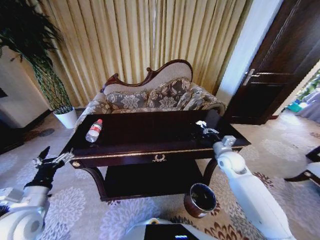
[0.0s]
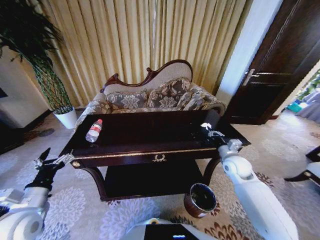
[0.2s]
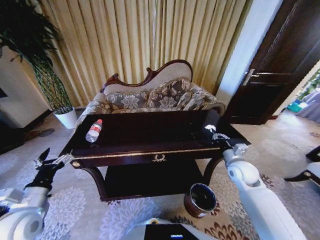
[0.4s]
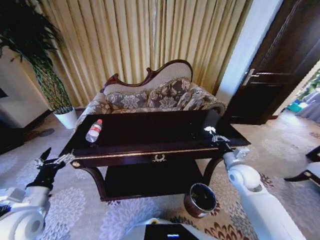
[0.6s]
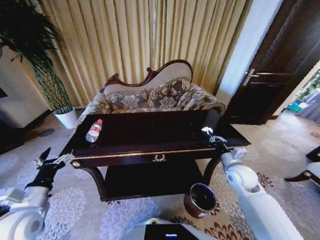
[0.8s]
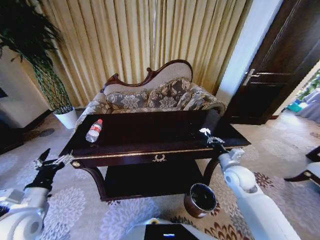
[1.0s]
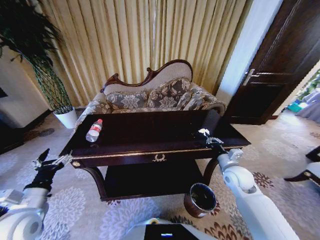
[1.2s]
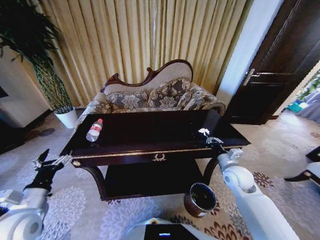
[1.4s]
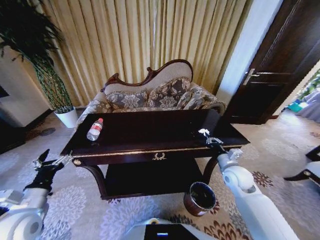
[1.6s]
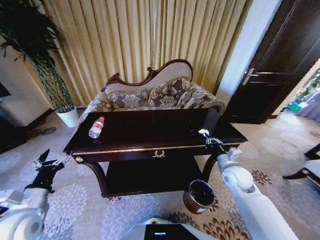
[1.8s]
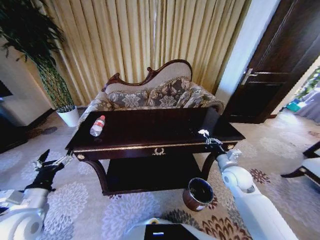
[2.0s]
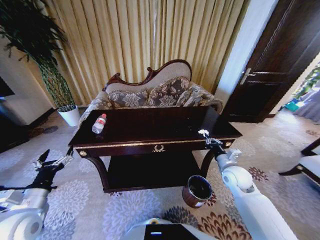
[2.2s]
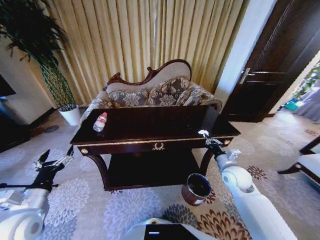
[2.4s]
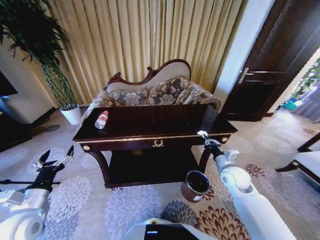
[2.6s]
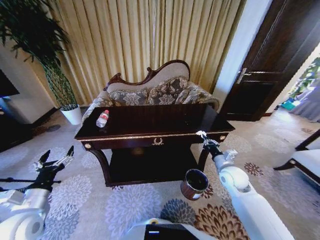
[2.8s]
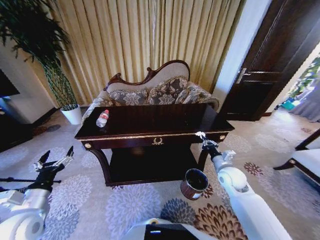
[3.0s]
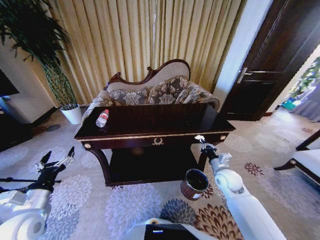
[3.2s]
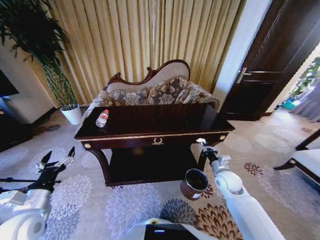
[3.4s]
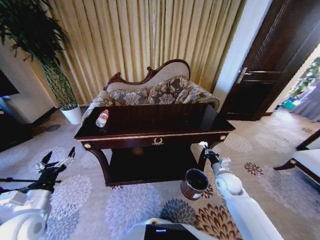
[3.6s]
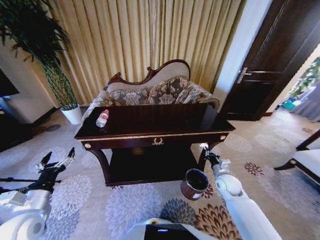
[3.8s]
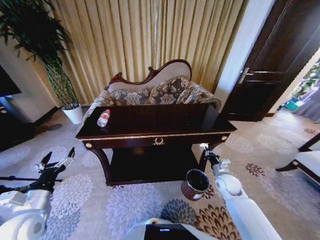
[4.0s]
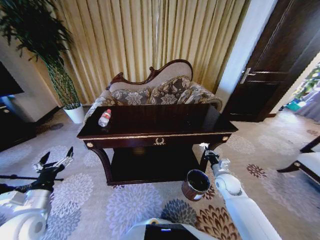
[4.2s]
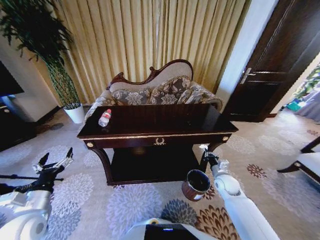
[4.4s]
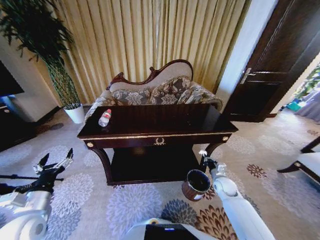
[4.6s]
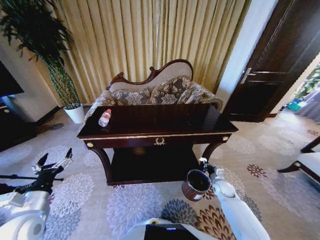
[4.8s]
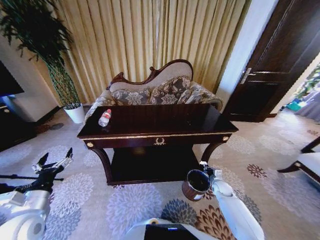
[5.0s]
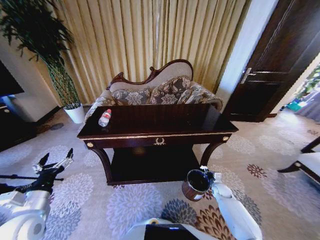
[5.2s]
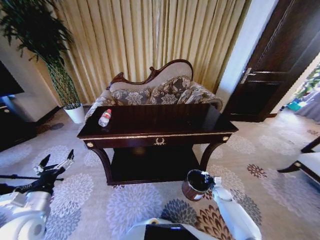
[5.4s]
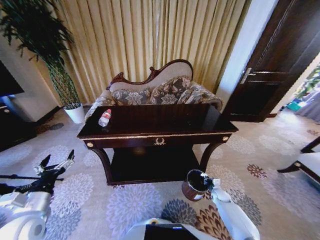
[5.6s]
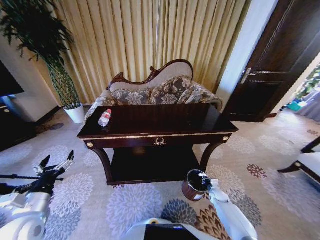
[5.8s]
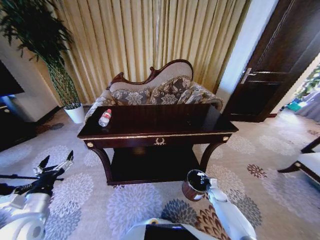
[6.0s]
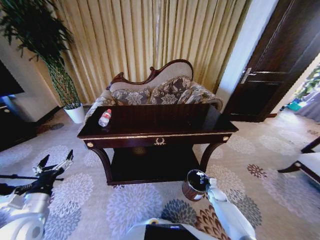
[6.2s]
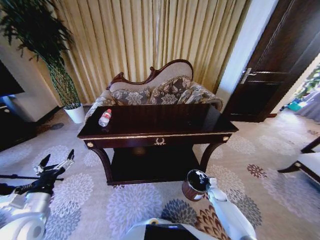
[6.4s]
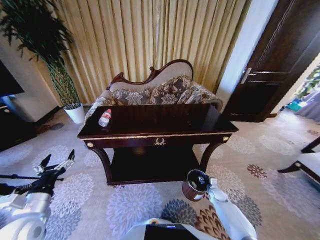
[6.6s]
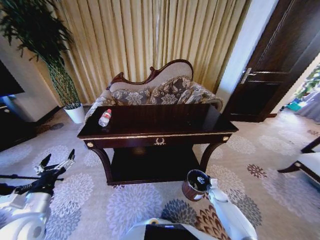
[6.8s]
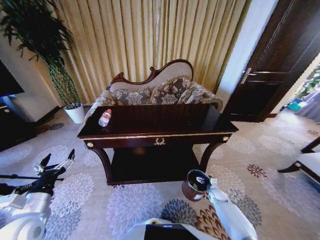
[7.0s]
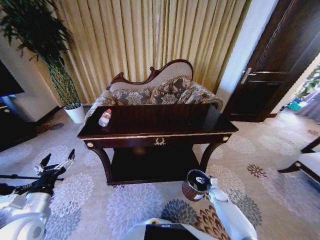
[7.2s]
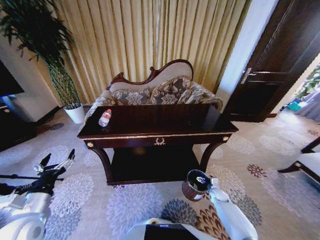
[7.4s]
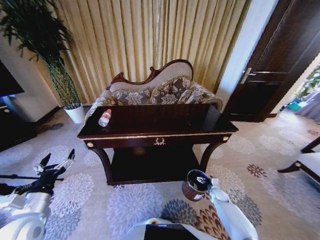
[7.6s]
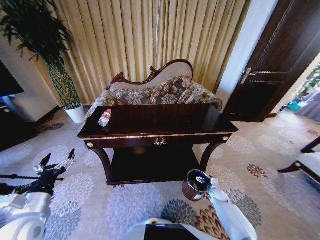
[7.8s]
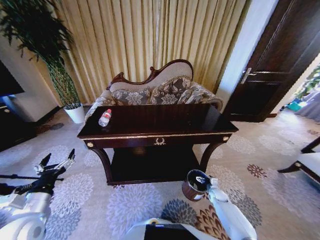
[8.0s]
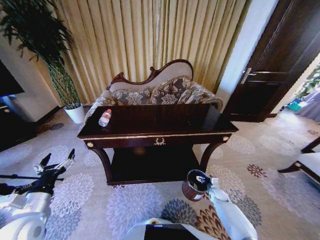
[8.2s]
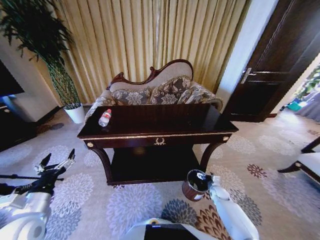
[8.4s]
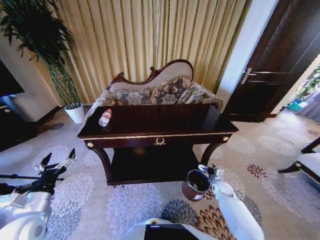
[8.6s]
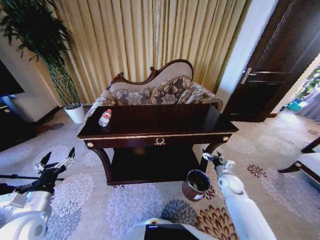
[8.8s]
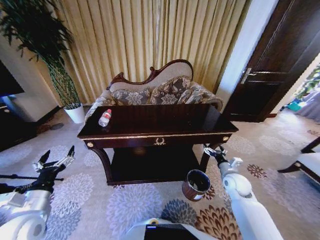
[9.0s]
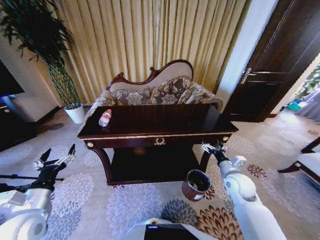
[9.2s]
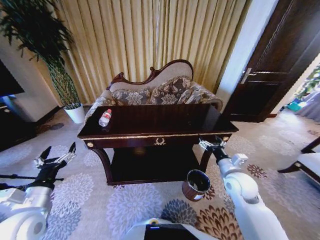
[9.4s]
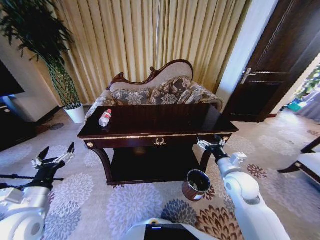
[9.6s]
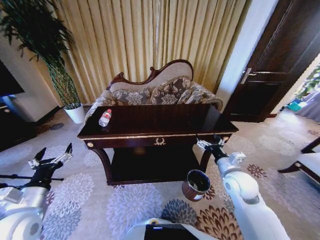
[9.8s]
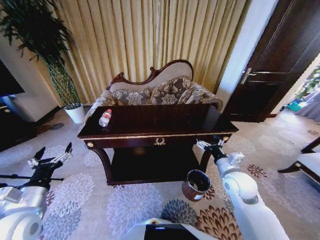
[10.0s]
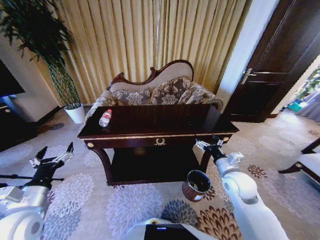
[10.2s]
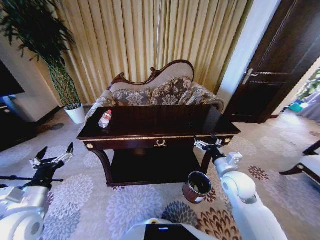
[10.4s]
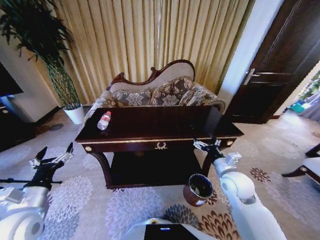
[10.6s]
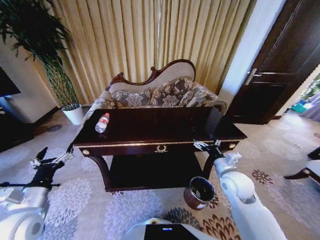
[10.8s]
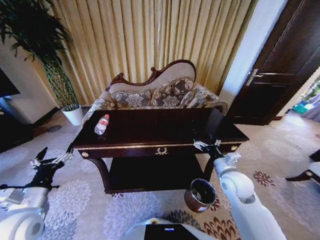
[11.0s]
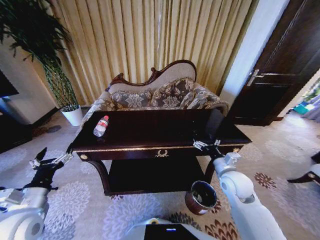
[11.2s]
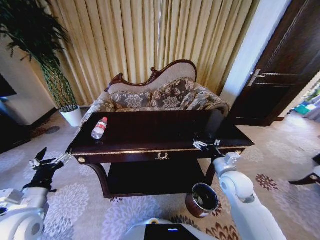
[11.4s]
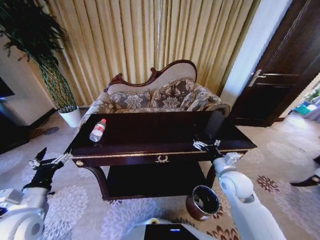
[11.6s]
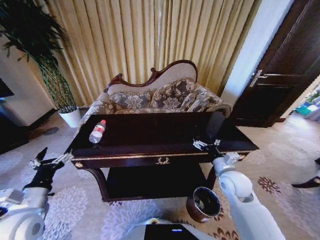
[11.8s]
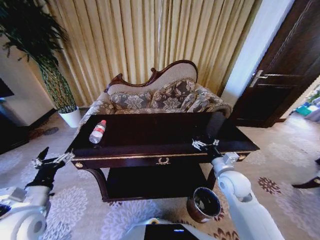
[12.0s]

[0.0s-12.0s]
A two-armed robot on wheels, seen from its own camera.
Task of the whole recording: Move to the front of the table and place the trash on the table into the trash bin.
0.0s to 1.6s: The right gripper is displaced backward by some 5 cm.
3.0s to 4.4s: The right gripper goes approximately 10 cm downward.
4.4s to 6.0s: The right gripper shifts some 20 cm downward.
7.6s to 9.0s: The right gripper is displaced upward by some 20 cm.
9.0s to 10.4s: The right gripper moves upward and to the left, approximately 15 cm.

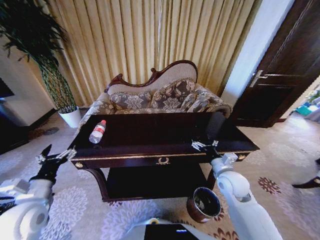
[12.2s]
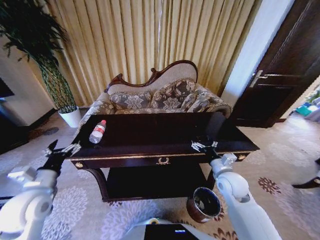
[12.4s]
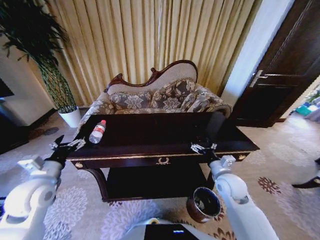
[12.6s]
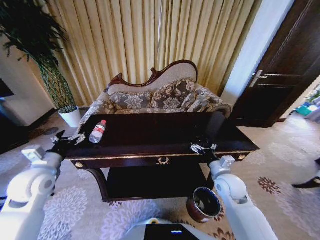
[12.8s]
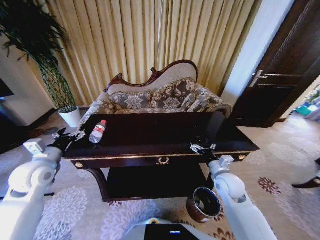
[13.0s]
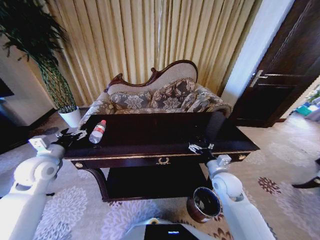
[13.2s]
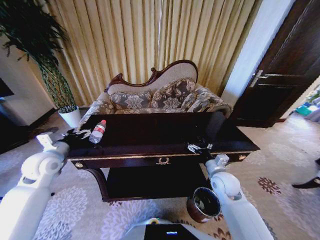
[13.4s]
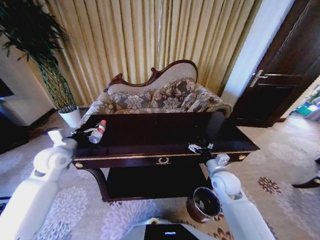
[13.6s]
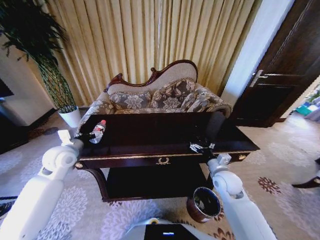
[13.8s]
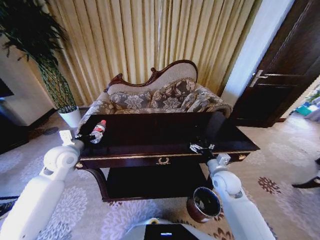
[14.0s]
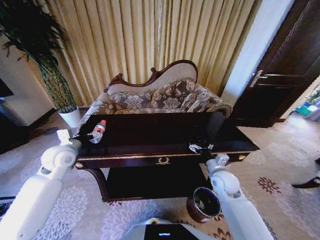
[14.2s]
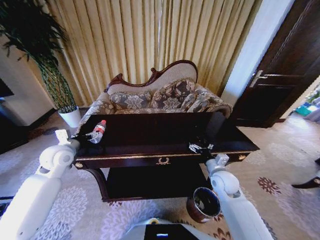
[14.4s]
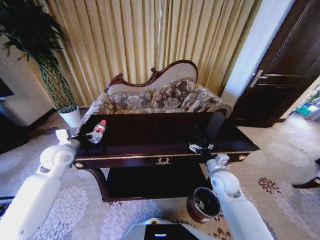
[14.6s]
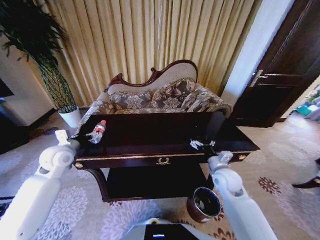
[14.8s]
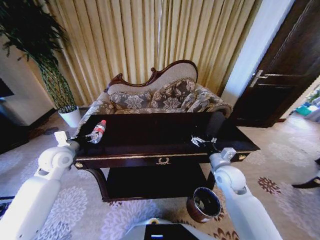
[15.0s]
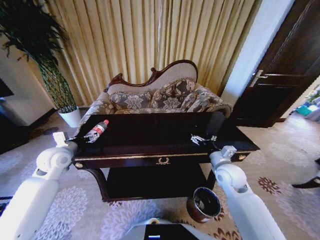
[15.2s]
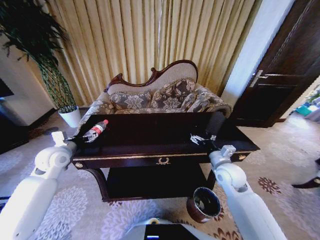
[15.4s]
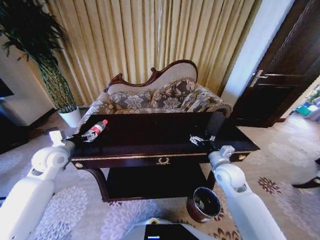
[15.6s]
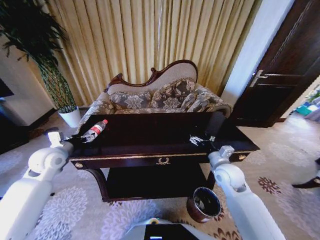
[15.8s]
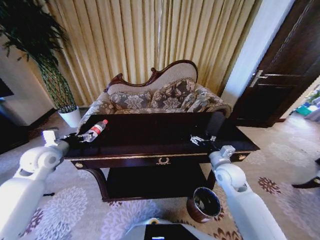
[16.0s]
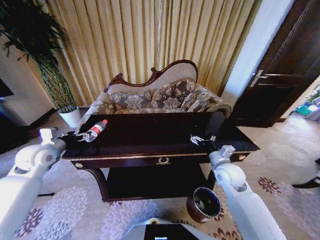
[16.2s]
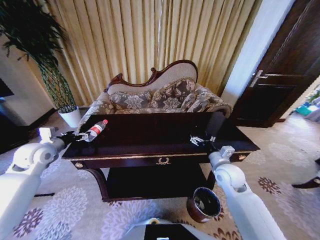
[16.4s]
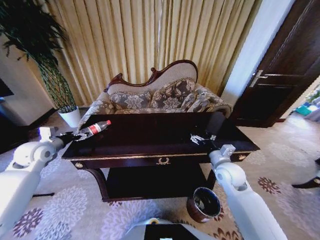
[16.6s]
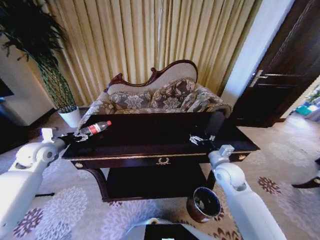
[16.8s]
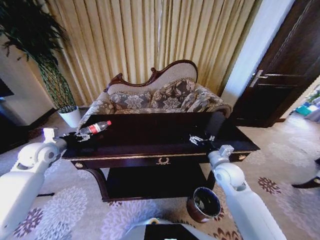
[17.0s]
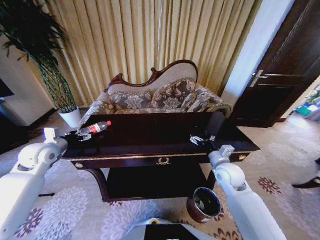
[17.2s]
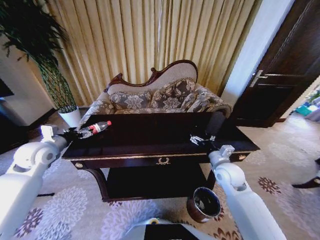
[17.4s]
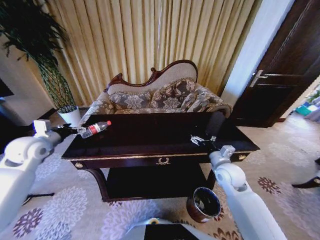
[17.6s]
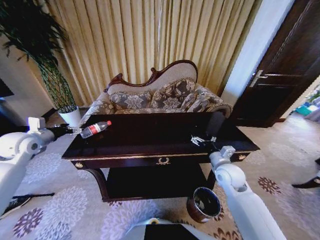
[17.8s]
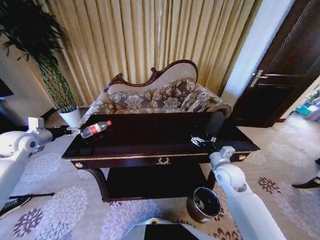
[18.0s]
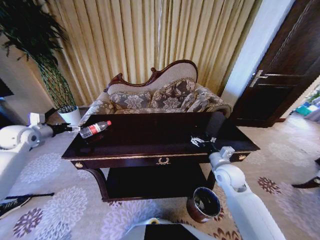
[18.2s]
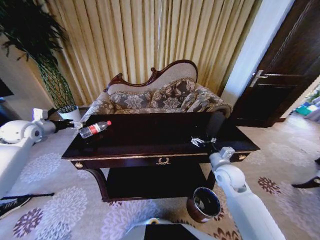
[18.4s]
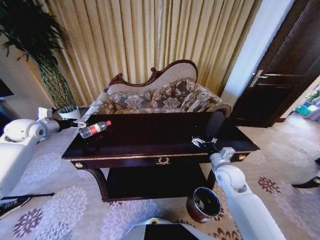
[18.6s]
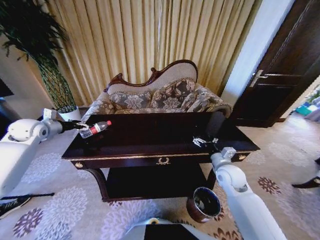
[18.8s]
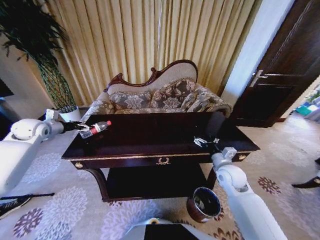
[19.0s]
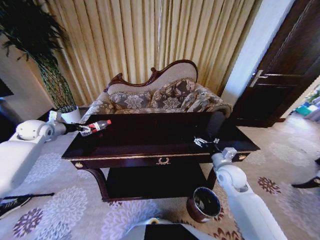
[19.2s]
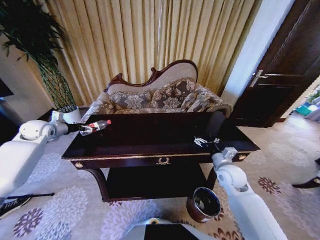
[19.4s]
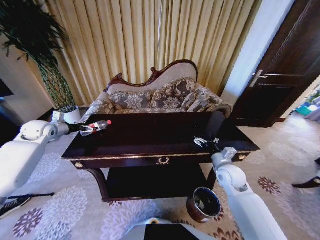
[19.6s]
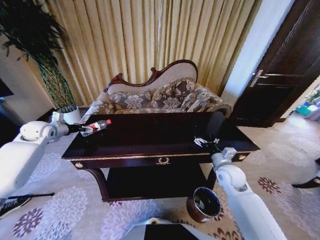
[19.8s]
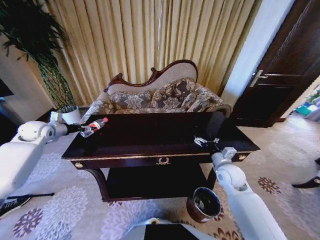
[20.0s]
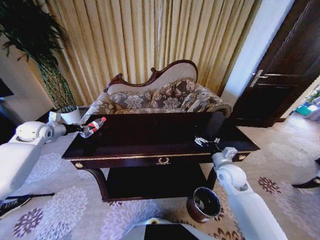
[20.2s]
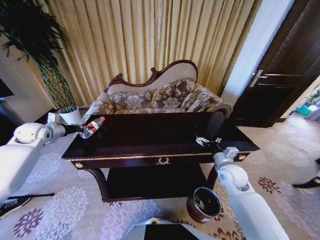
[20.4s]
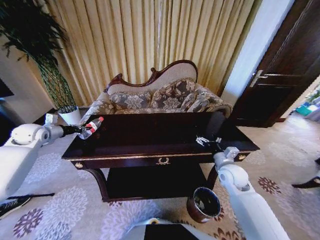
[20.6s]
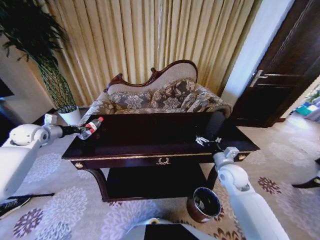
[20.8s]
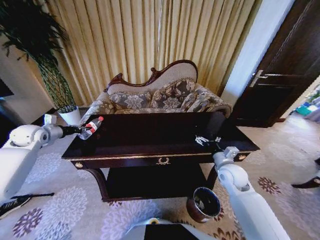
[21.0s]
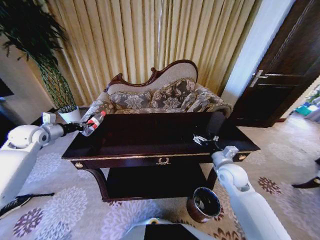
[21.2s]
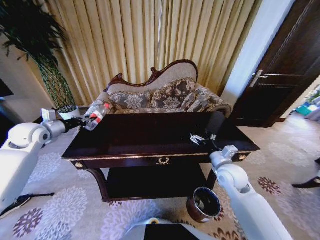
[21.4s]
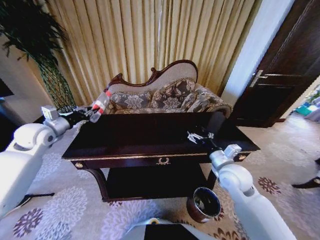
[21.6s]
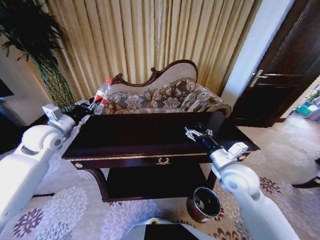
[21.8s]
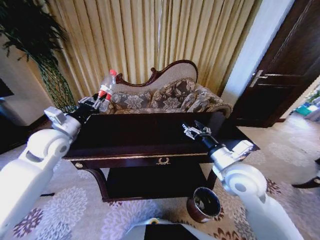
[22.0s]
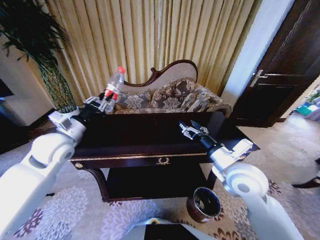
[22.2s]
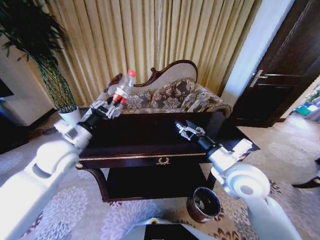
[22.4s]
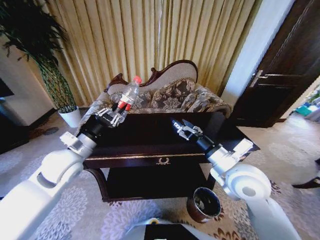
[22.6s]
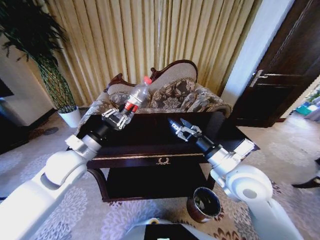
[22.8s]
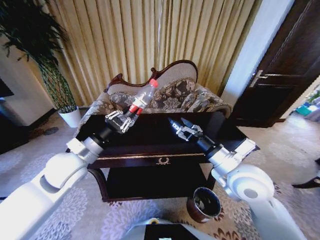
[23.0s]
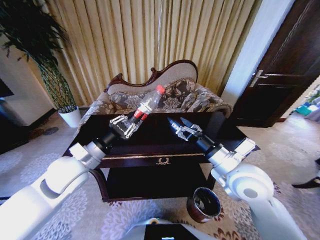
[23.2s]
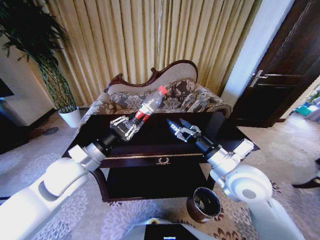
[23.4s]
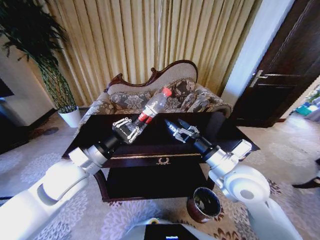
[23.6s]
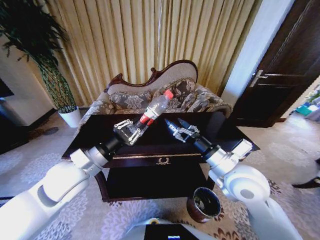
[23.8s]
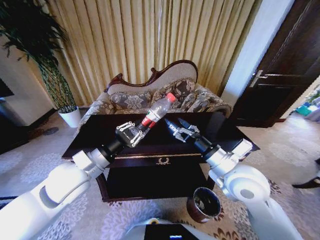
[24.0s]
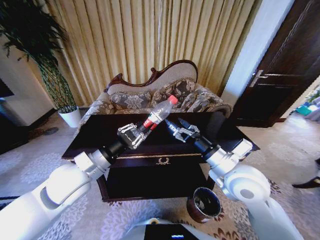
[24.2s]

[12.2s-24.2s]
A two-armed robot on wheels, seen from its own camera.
Task of the whole recording: Move to the front of the table and place the trash on the table into the trash bin.
12.2s to 13.8s: The left gripper moves forward, about 20 cm.
13.8s to 15.2s: There are only small adjustments of the grippers.
15.2s to 16.6s: The left gripper heads to the left, covering approximately 10 cm.
16.6s to 18.2s: The left gripper travels to the left by some 5 cm.
18.2s to 19.8s: The left gripper travels forward by about 5 cm.
19.8s to 21.2s: The left gripper closes.
21.2s to 22.6s: The right gripper moves upward, backward and to the left, roughly 15 cm, while the left gripper moves to the right and backward, approximately 25 cm.
22.6s to 24.2s: The left gripper is displaced backward by some 5 cm.
